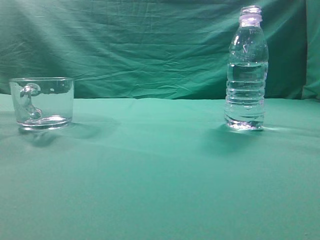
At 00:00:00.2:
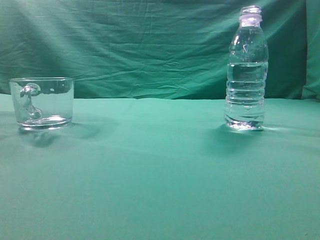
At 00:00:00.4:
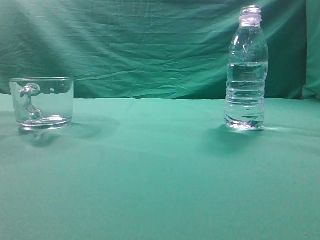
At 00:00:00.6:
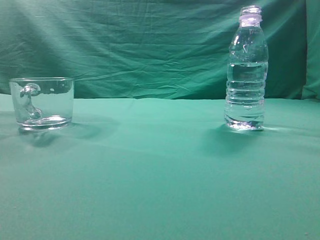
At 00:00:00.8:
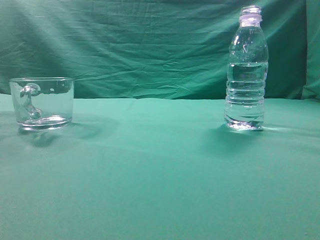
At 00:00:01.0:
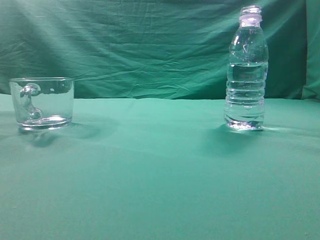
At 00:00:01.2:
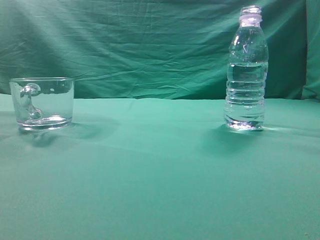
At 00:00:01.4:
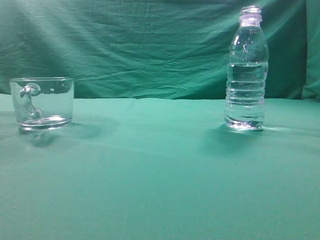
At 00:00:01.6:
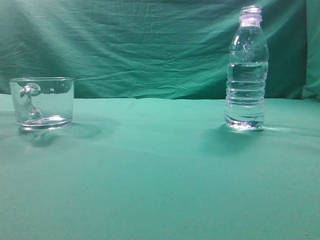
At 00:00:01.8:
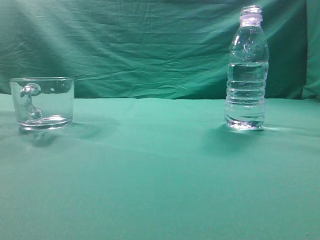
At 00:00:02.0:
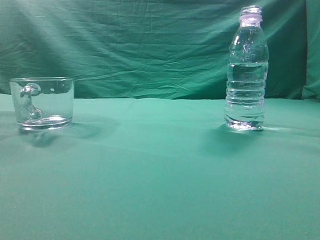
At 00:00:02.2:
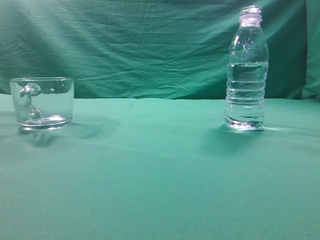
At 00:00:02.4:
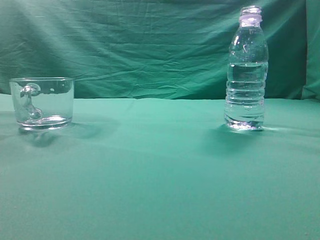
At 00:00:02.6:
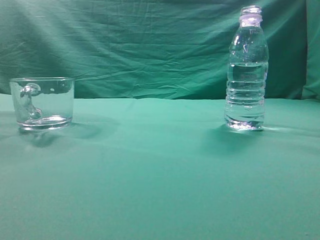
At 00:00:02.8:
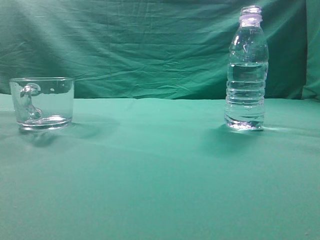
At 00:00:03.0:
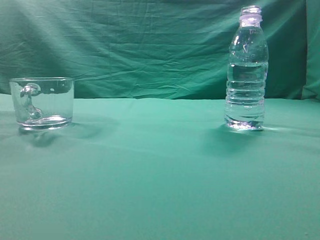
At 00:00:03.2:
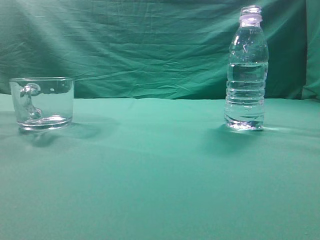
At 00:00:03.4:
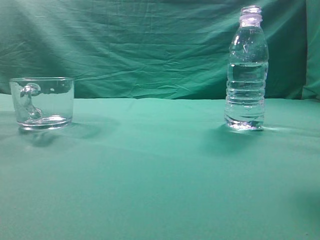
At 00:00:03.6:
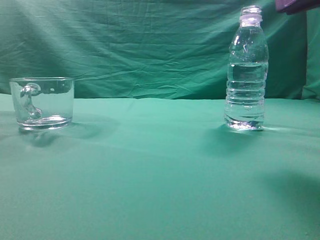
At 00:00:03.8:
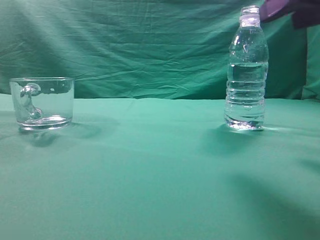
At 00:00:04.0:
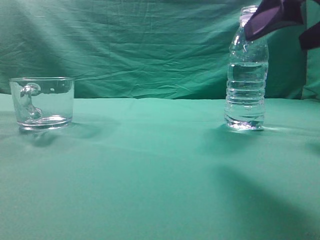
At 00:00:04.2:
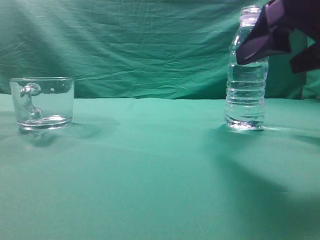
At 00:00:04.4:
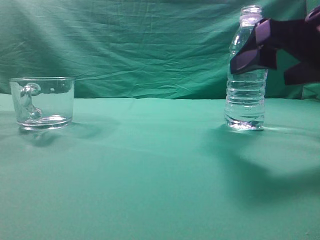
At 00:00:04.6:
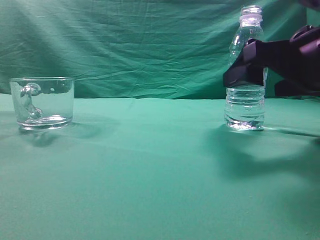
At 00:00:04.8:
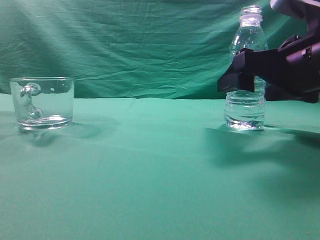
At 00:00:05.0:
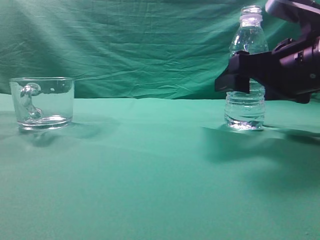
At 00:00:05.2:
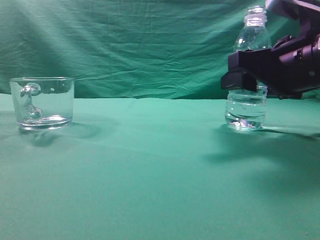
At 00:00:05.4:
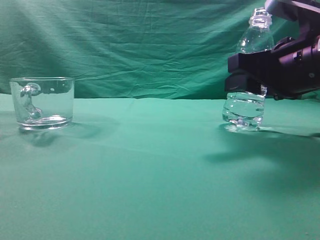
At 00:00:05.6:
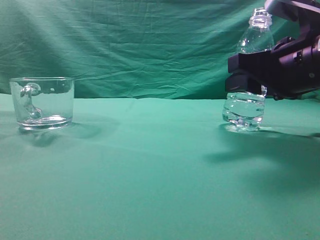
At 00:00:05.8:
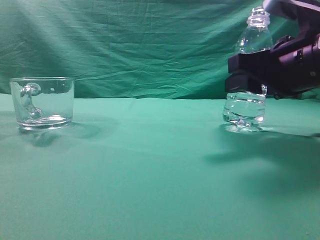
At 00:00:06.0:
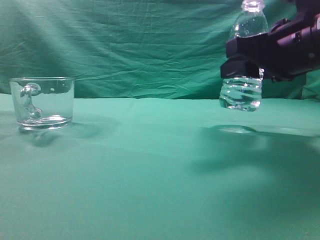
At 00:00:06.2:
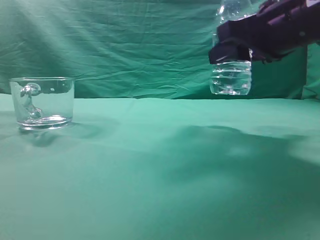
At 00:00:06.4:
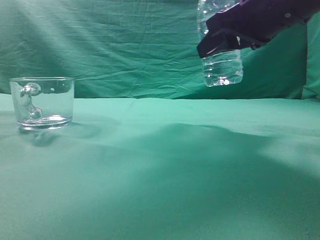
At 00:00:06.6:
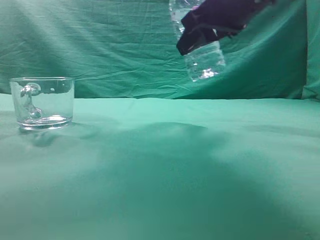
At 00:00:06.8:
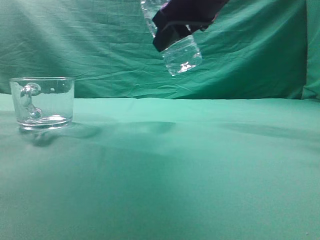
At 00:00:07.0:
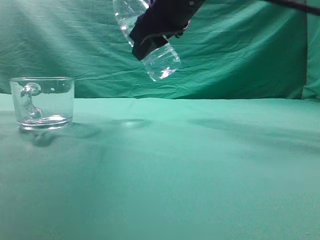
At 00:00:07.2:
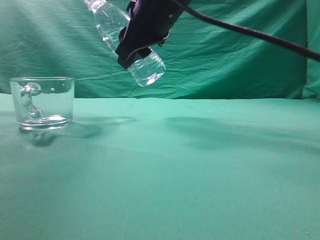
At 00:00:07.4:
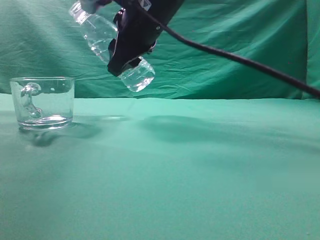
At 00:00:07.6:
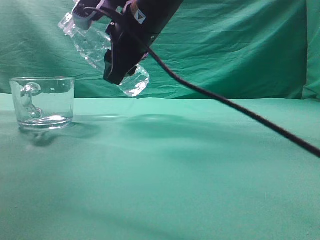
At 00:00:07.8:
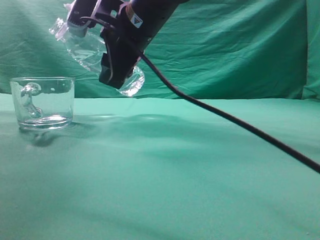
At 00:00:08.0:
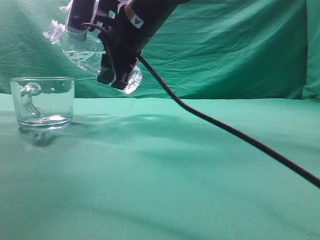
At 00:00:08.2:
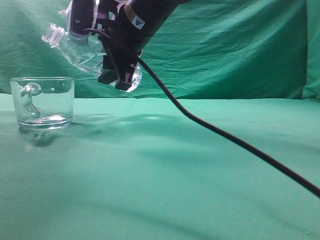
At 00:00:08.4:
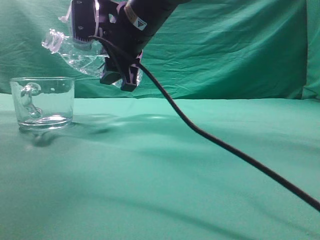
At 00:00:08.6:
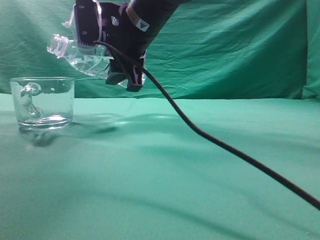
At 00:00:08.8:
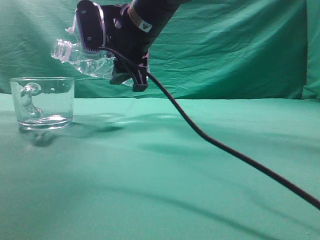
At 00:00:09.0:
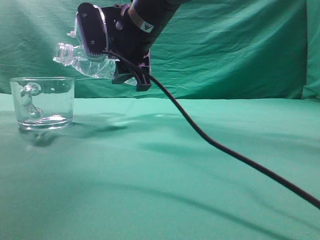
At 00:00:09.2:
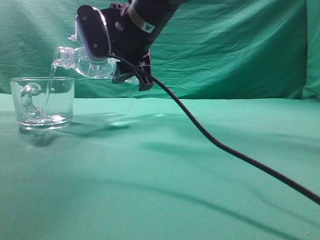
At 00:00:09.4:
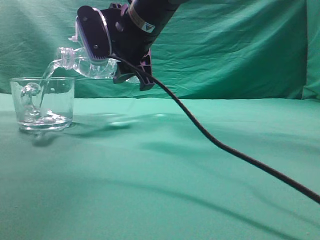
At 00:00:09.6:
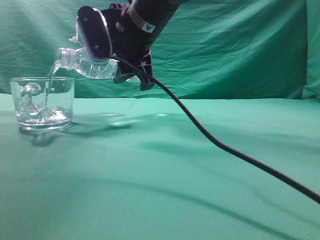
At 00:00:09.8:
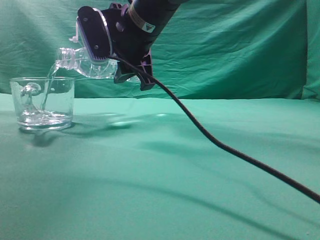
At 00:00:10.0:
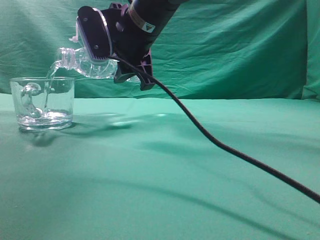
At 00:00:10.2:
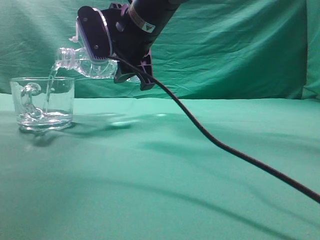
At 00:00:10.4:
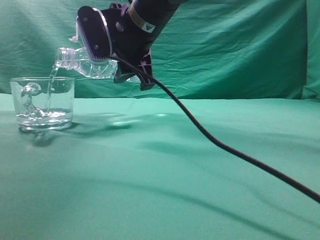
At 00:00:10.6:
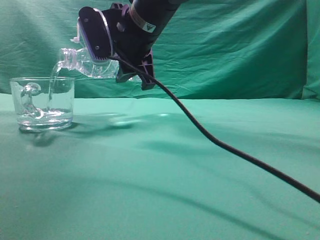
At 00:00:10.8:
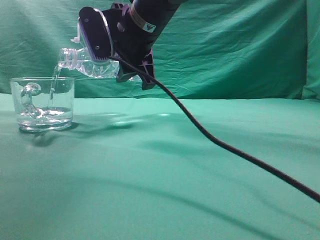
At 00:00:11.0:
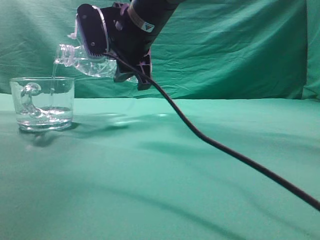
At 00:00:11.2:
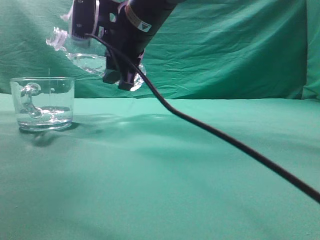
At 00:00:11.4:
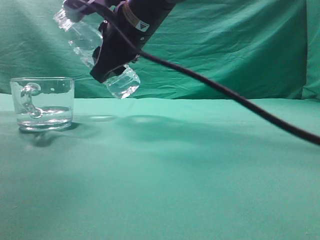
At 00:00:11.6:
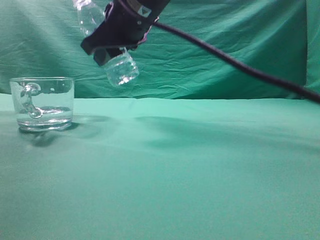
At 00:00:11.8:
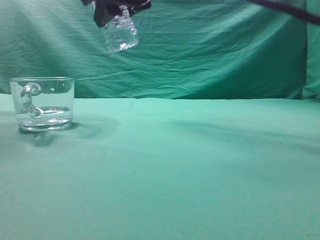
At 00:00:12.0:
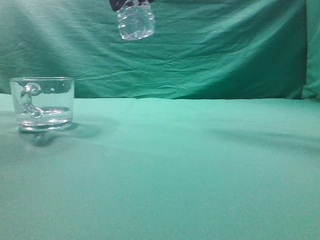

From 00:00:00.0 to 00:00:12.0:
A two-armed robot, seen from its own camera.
Task of the whole recording: pick up the water bottle and pour the water in it into the glass.
Step, from 00:00:00.0 to 00:00:06.2: Grasp the mineral water bottle.
Step, from 00:00:06.4 to 00:00:11.4: Pour water into the teacup.
From 00:00:03.0 to 00:00:04.4: The right gripper is displaced downward, forward and to the left by approximately 20 cm, and opens its fingers.
From 00:00:04.4 to 00:00:06.0: The right gripper closes its fingers.
From 00:00:06.0 to 00:00:07.6: The right gripper heads to the left and forward, covering roughly 20 cm.
From 00:00:09.0 to 00:00:10.4: Both grippers stay about where they are.
From 00:00:10.4 to 00:00:12.0: The right gripper is displaced upward and backward by about 10 cm.

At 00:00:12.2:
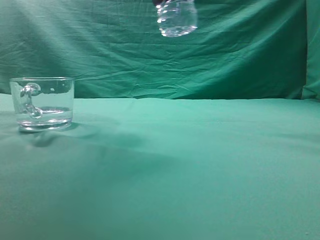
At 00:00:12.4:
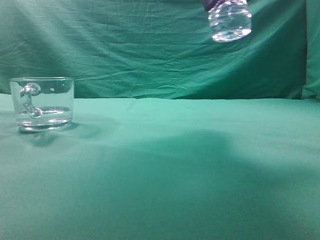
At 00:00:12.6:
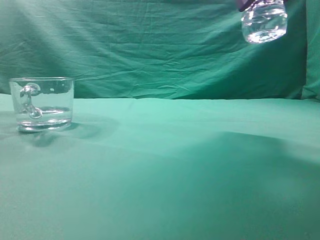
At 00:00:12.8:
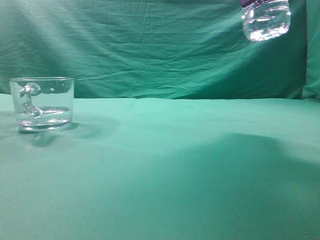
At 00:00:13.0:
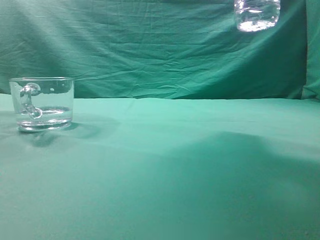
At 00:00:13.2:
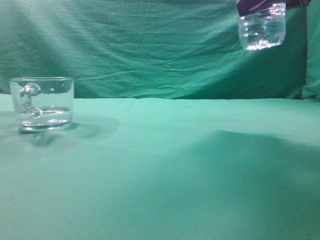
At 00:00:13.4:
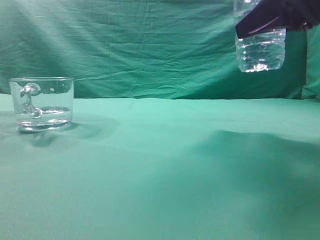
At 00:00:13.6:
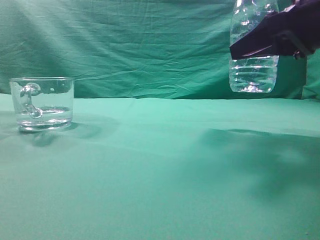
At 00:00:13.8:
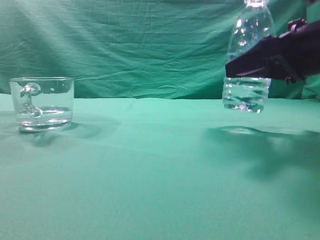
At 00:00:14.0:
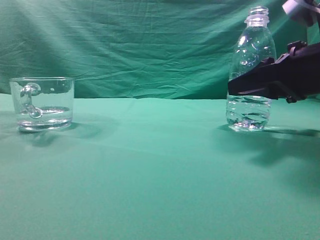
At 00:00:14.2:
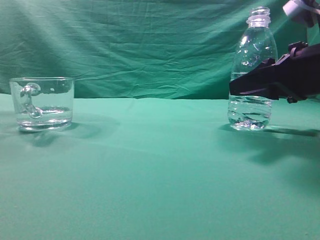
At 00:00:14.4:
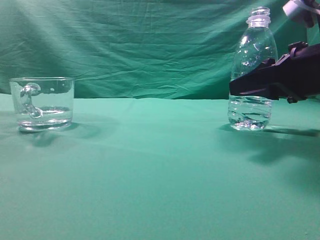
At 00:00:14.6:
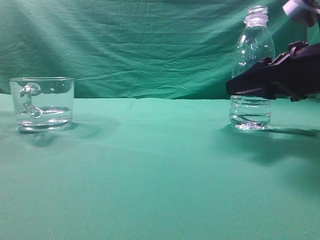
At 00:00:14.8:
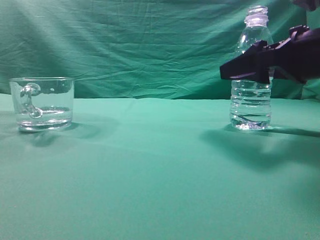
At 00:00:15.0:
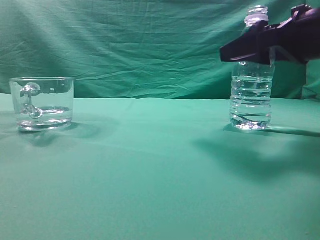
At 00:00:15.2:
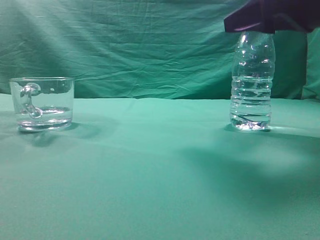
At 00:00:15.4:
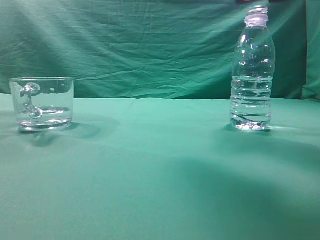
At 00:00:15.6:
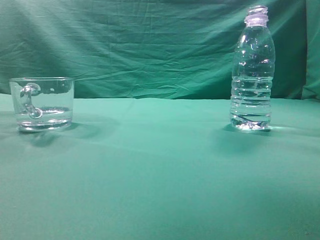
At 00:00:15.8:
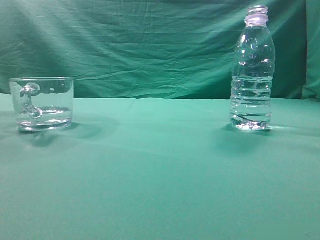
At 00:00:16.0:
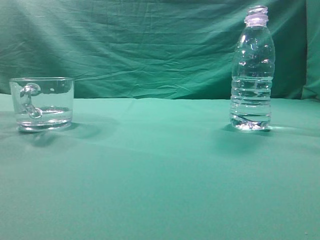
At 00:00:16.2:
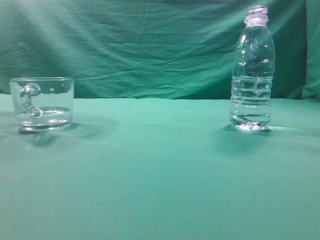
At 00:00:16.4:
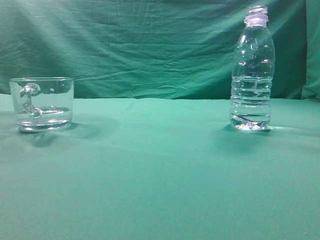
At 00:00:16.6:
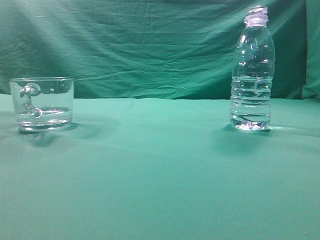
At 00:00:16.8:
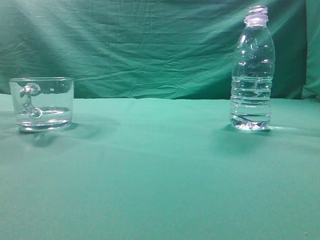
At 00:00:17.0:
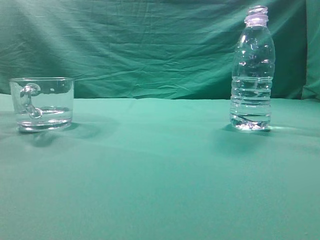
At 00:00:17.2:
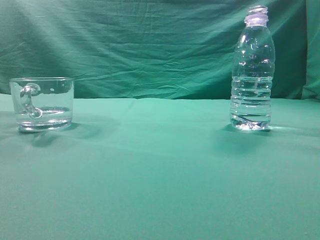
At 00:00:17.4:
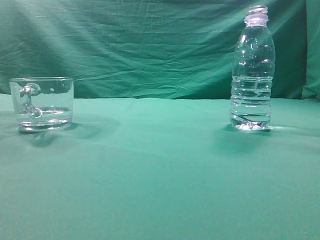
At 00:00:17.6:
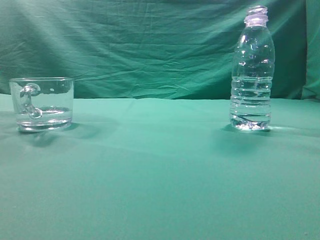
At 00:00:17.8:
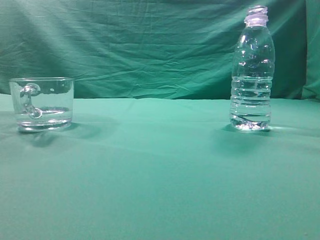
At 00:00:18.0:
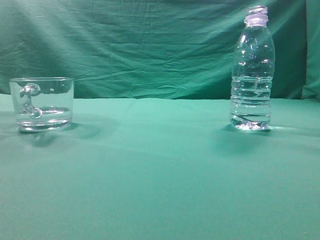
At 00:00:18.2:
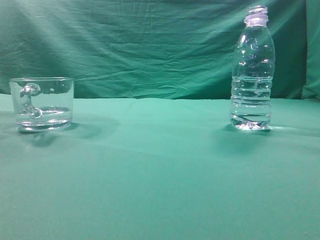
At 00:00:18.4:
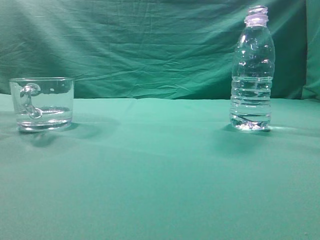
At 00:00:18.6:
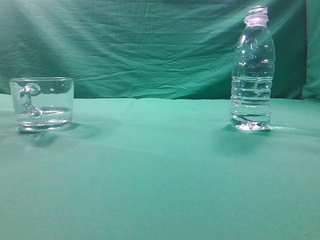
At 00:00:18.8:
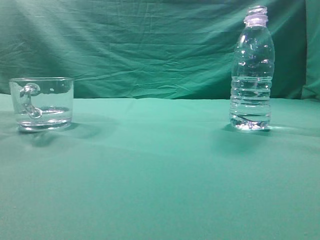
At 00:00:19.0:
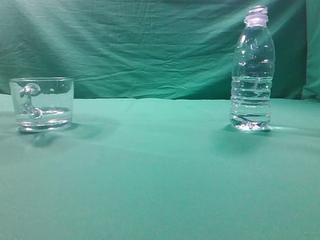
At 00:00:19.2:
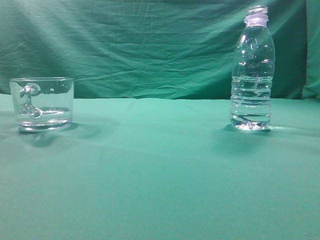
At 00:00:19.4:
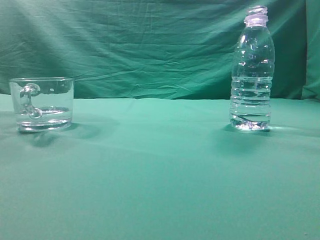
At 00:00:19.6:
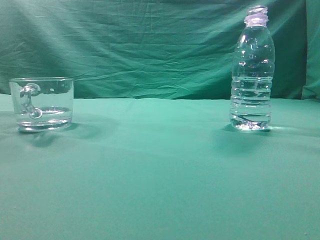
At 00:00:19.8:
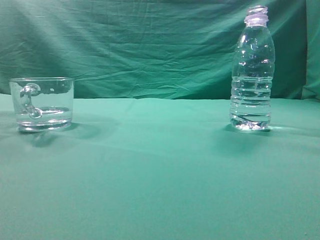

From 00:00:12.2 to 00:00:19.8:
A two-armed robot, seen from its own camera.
Task of the whole recording: pick up the water bottle and pour the water in it into the glass.
From 00:00:12.2 to 00:00:13.8: The right gripper heads downward and to the right, covering about 20 cm.
From 00:00:13.8 to 00:00:15.2: The right gripper moves upward, about 5 cm, and opens its fingers.
From 00:00:15.2 to 00:00:16.8: The right gripper shifts about 35 cm backward and upward, and closes.
